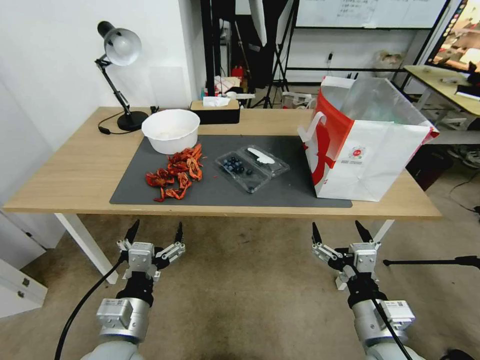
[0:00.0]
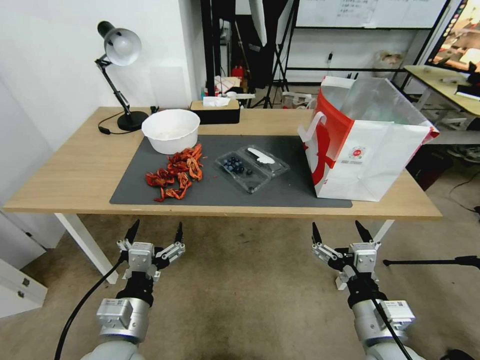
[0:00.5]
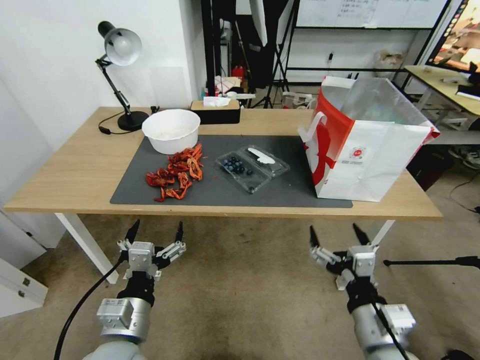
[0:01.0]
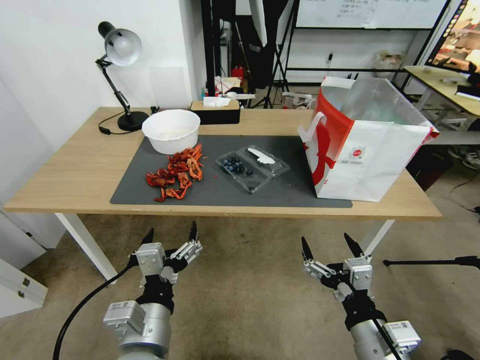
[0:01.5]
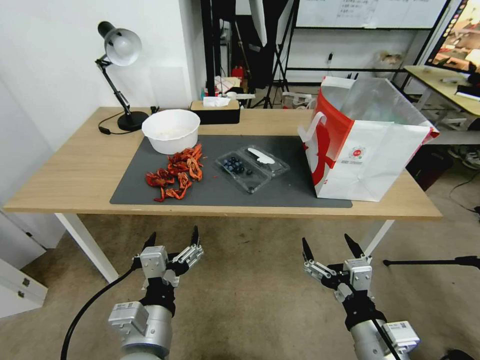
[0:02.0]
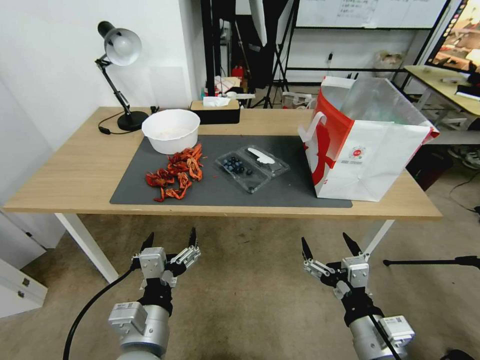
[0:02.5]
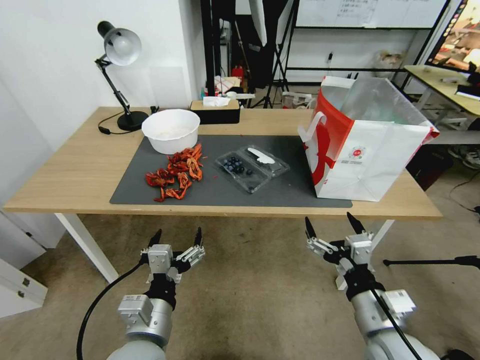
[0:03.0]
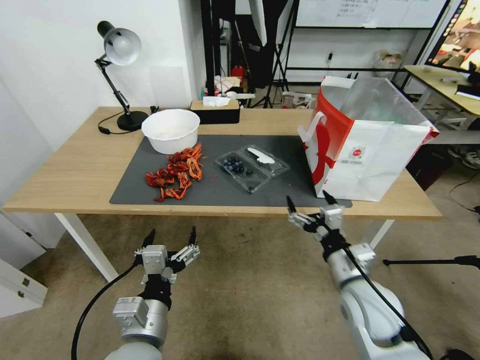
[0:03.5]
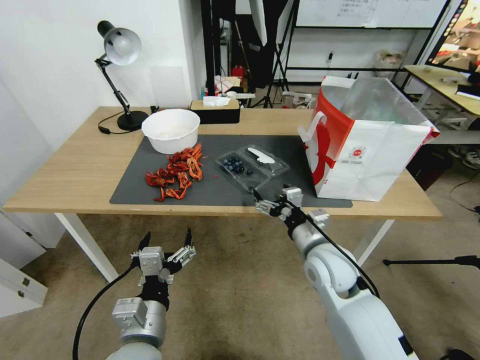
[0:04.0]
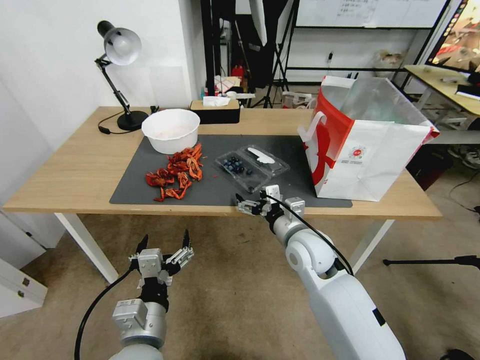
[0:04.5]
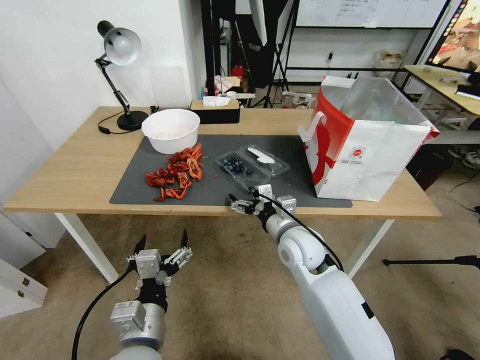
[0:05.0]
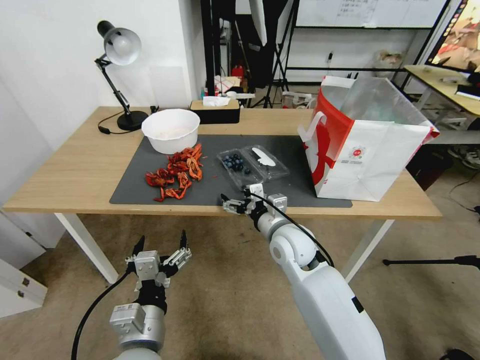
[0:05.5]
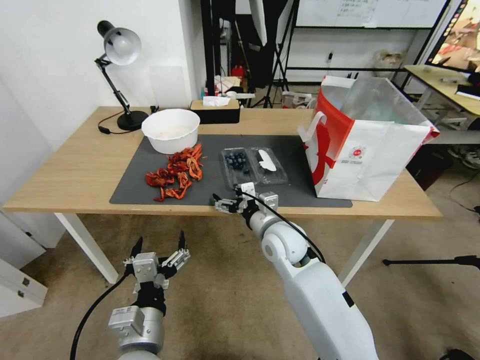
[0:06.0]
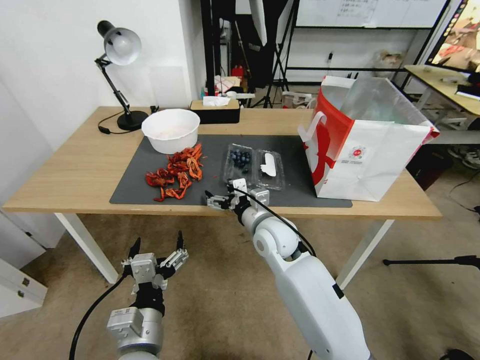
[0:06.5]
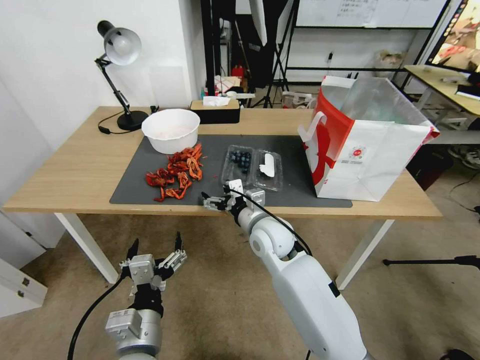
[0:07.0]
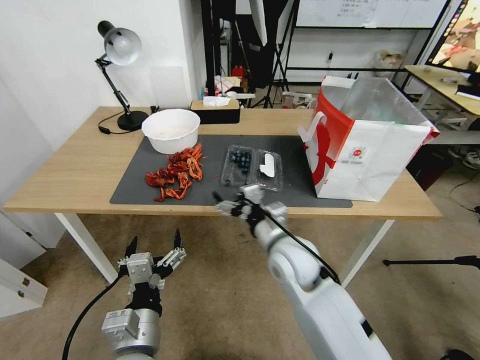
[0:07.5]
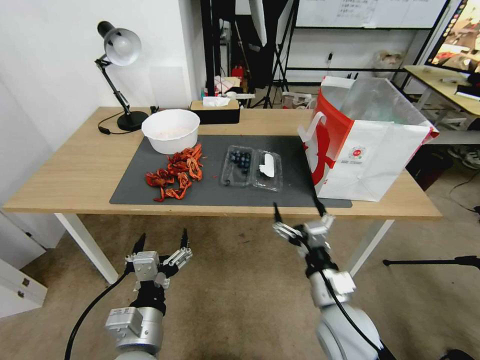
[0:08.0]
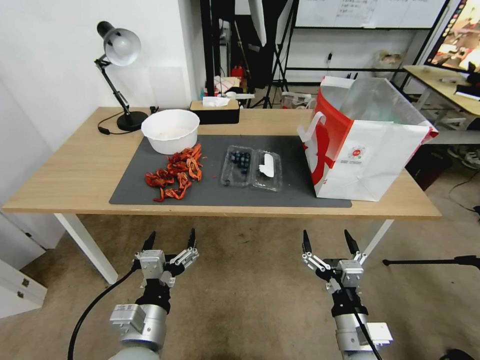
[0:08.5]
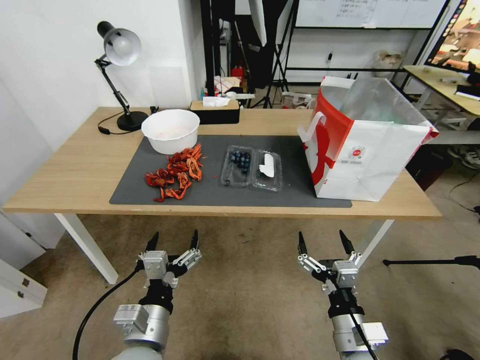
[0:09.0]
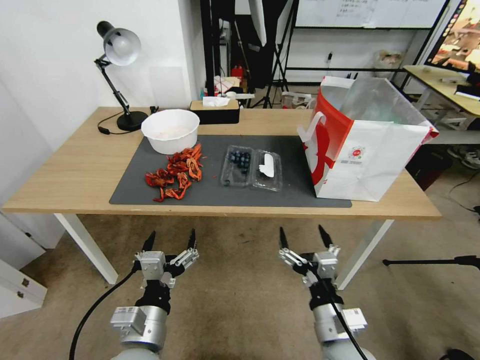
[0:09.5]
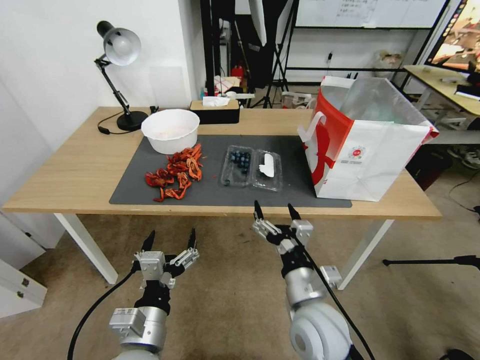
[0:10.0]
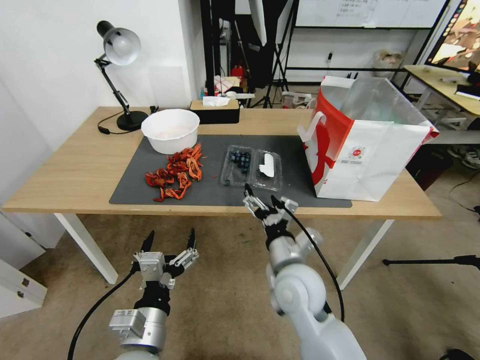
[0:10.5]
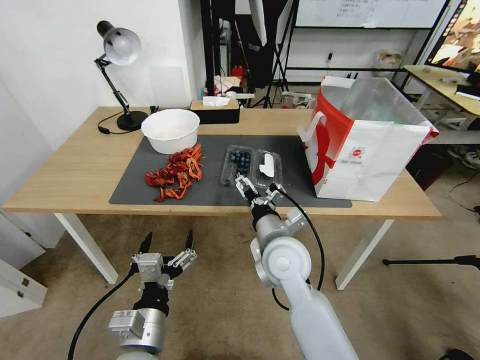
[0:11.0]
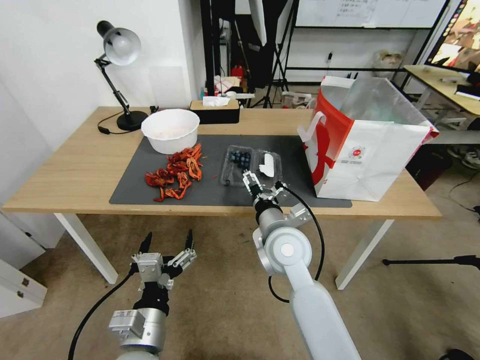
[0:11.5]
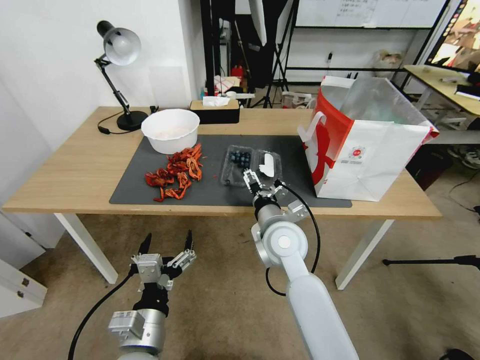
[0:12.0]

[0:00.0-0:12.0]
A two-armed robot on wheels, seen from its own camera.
Task of the whole recording: Close the takeout container lid, then place the container into the takeout bag.
0:02.0 to 0:04.0: The right gripper moves forward, some 20 cm.
0:04.0 to 0:06.0: The right gripper is displaced to the left and forward by some 10 cm.
0:06.0 to 0:08.0: The right gripper is displaced backward and to the right by about 20 cm.
0:10.0 to 0:12.0: The right gripper travels forward by approximately 15 cm.

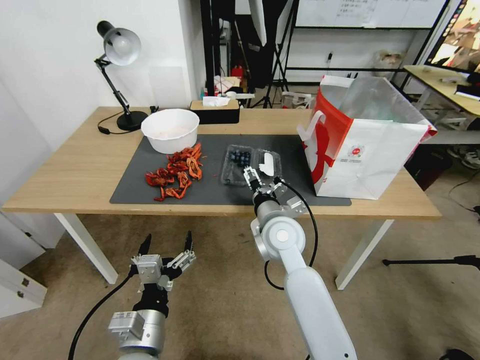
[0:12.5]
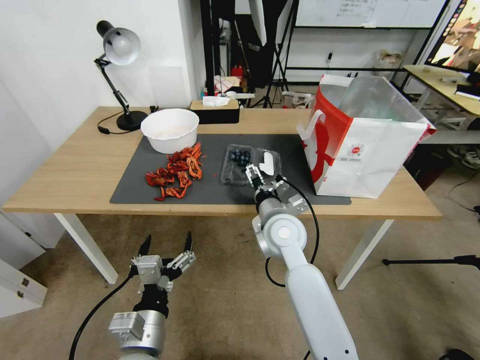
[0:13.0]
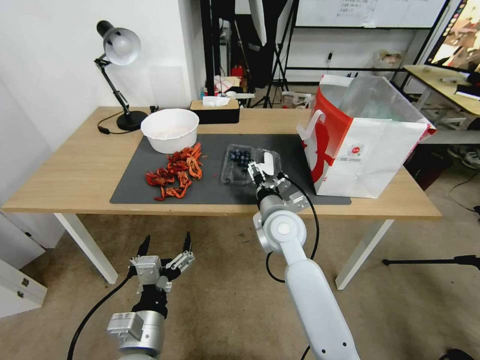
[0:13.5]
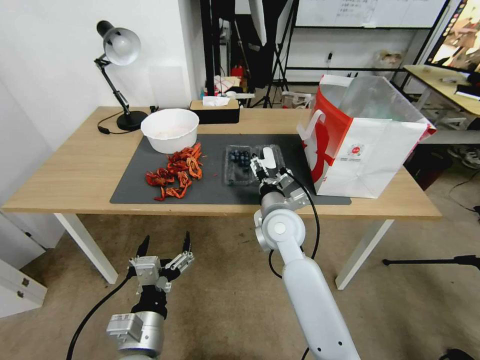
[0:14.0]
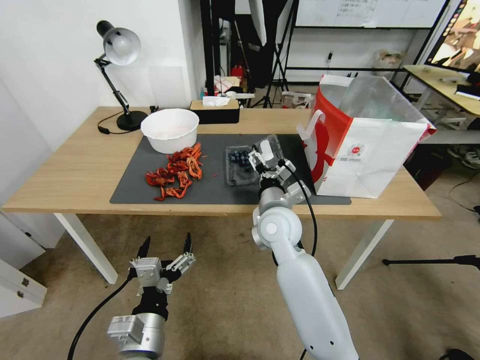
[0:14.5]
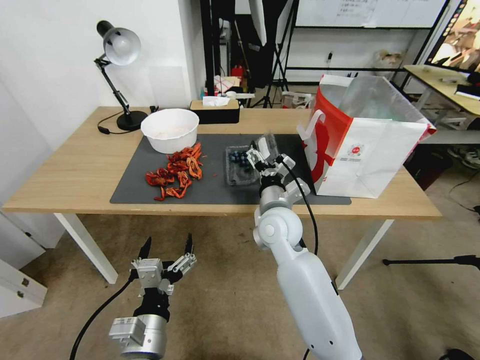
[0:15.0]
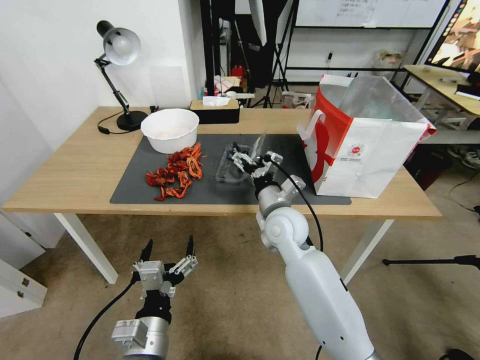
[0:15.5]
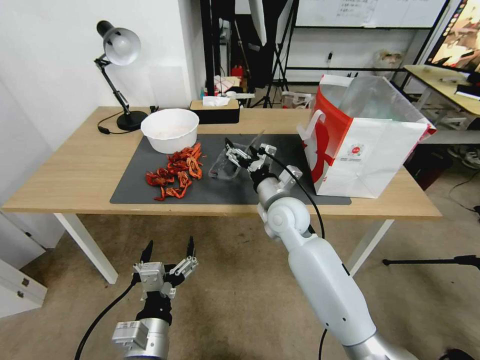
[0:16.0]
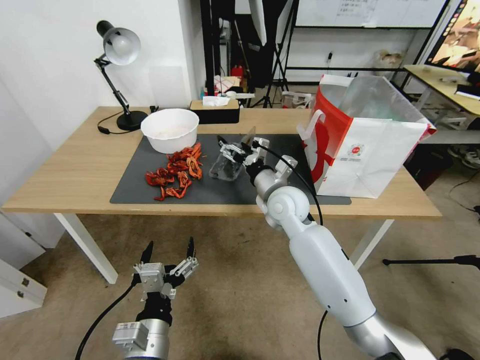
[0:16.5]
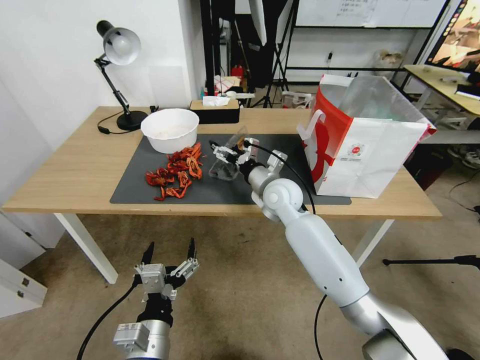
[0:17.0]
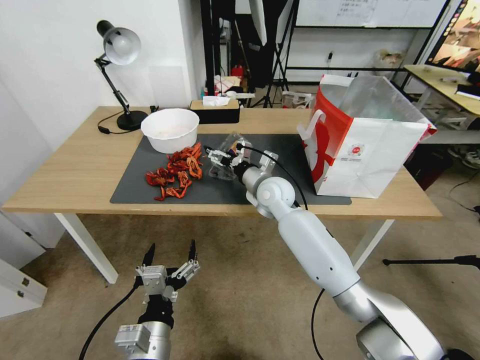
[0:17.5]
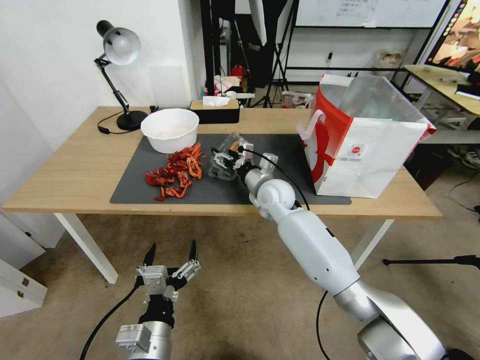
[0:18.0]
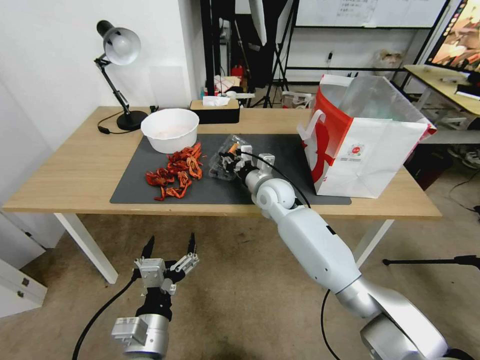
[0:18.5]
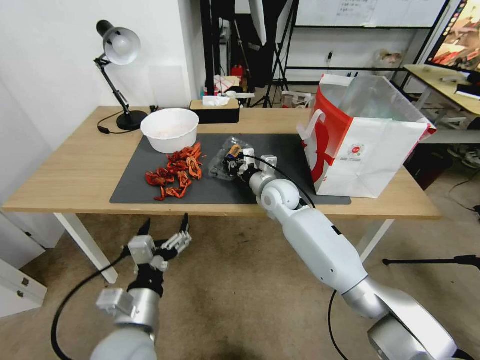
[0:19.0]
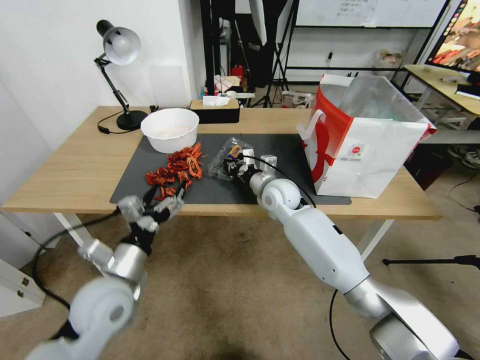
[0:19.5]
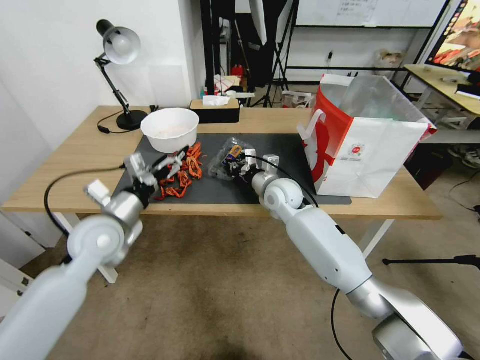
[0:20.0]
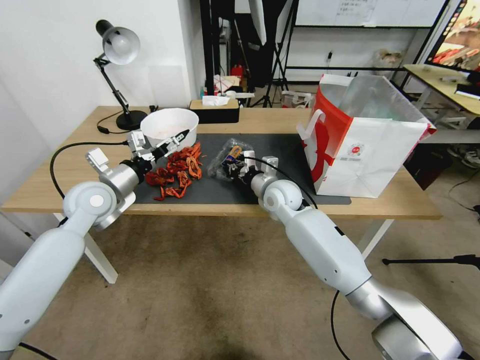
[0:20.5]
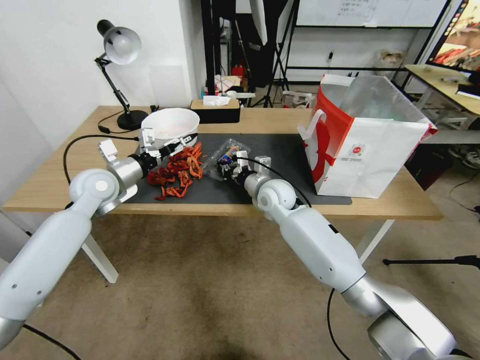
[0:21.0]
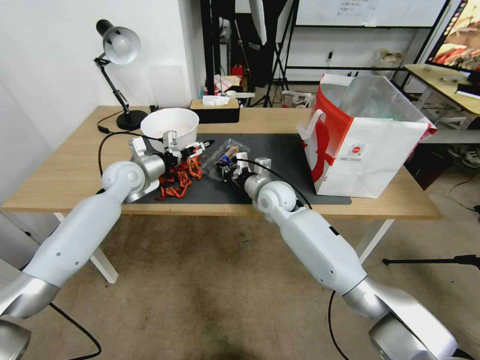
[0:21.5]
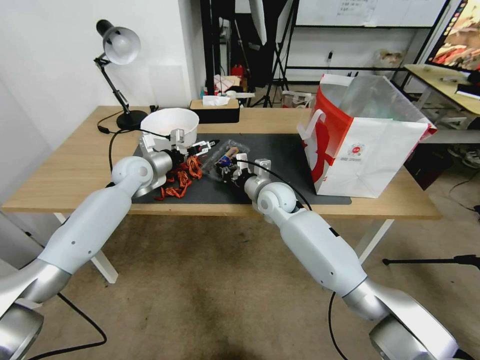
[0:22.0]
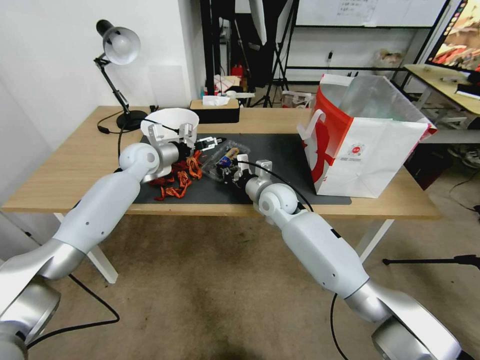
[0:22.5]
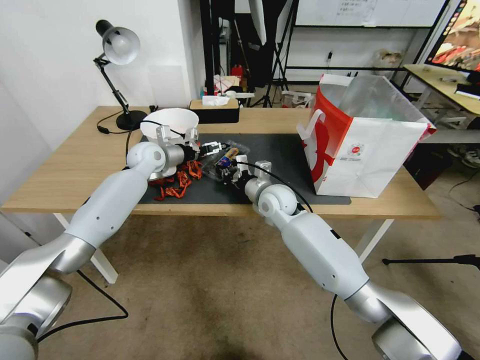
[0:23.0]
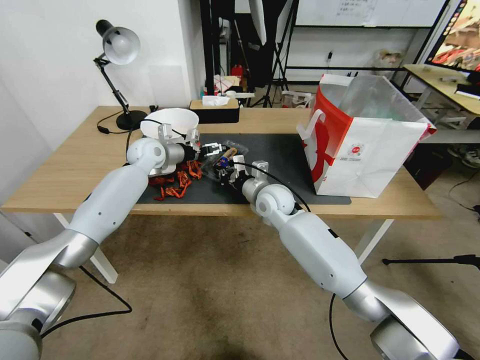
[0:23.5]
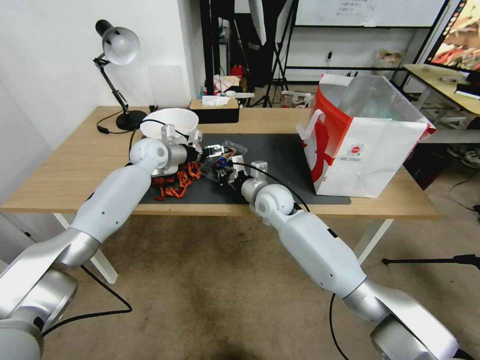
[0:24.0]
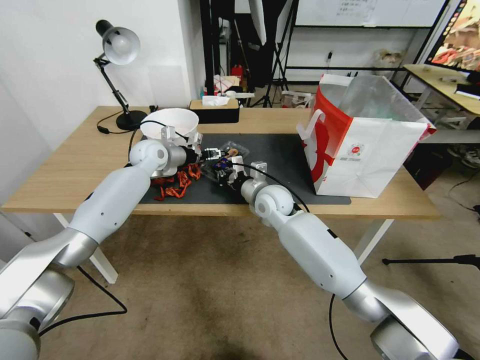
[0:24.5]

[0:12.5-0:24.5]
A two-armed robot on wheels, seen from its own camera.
Task of the whole recording: Close the takeout container lid, then place the container into the takeout bag.
0:14.5 to 0:16.5: The right gripper shifts some 5 cm forward.
0:16.5 to 0:18.5: The right gripper is displaced forward by some 5 cm, and closes its fingers.
0:18.5 to 0:20.5: The left gripper is displaced forward, to the left and upward by some 35 cm.
0:20.5 to 0:22.5: The left gripper is displaced forward by about 15 cm.
0:22.5 to 0:24.5: The left gripper closes its fingers.

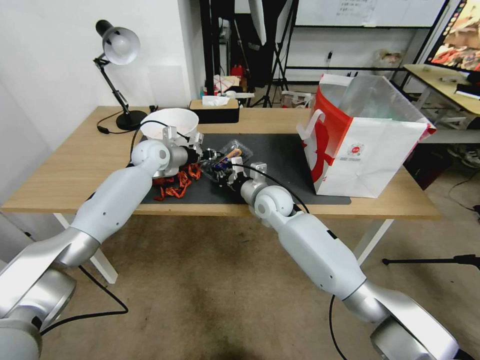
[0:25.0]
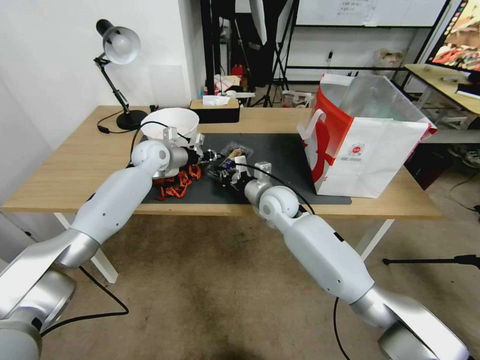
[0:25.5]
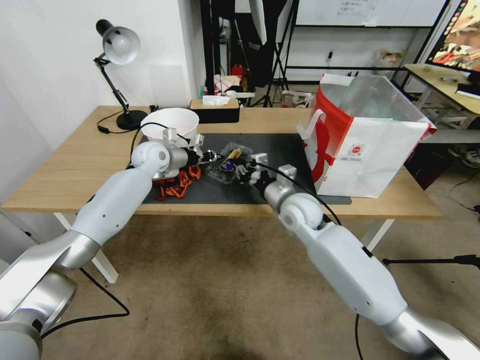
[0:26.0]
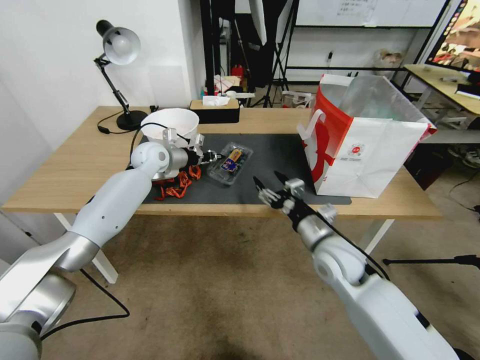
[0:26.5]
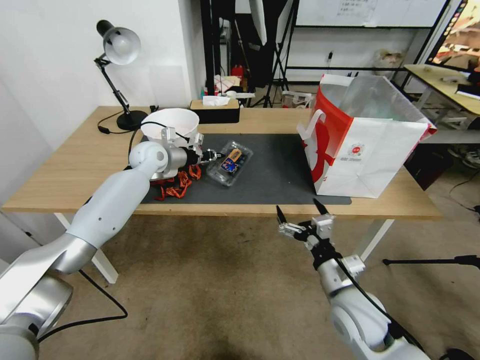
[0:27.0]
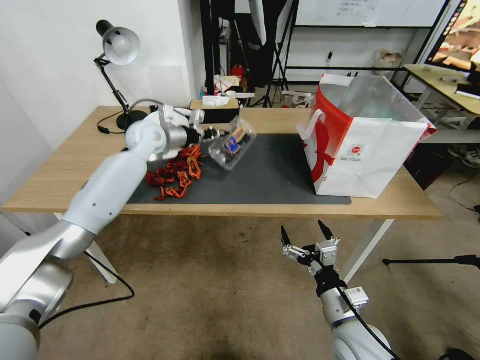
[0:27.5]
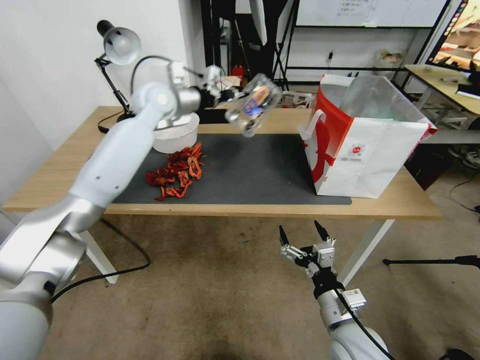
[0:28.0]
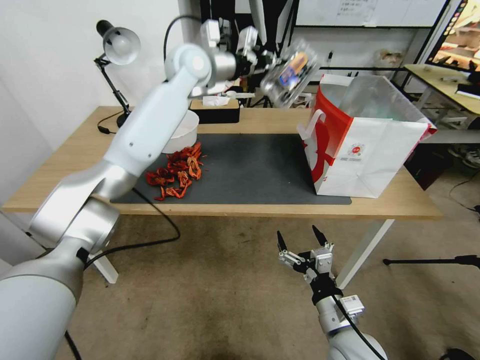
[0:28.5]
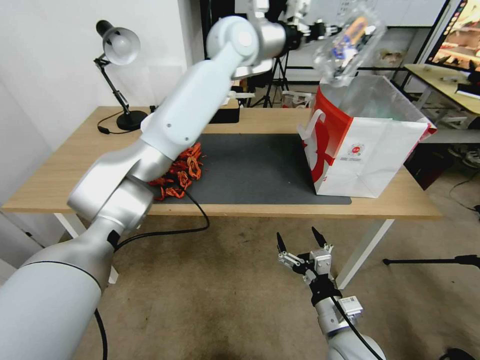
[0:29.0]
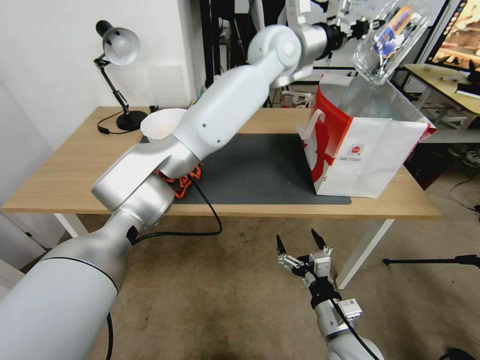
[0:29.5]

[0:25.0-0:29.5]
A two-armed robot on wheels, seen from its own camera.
Task of the whole recording: Close the takeout container lid, then place the container into the takeout bag.
0:25.0 to 0:27.0: The right gripper moves backward and to the right, approximately 30 cm, and opens its fingers.
0:27.0 to 0:29.5: The right gripper travels backward by approximately 5 cm. Meanwhile the left gripper shifts roughly 40 cm to the right and upward.
